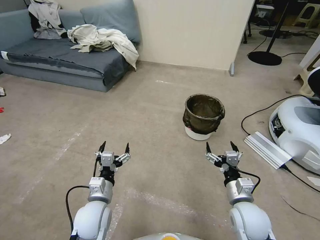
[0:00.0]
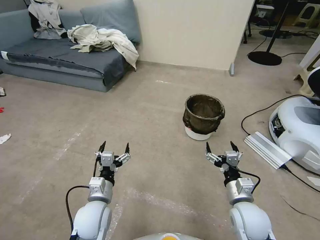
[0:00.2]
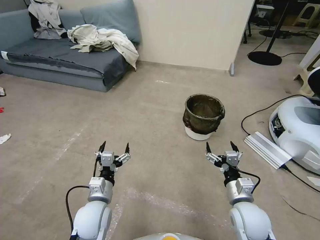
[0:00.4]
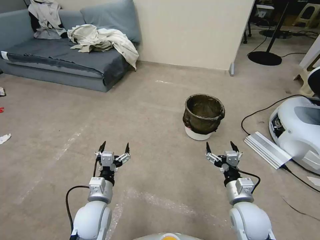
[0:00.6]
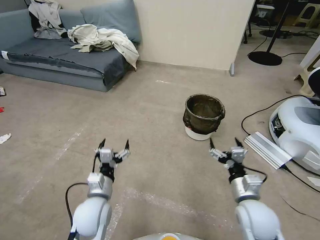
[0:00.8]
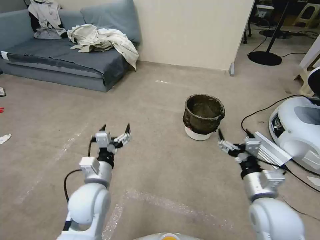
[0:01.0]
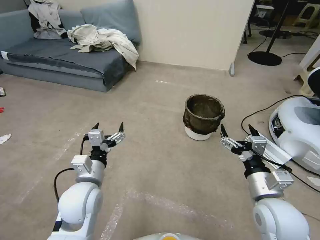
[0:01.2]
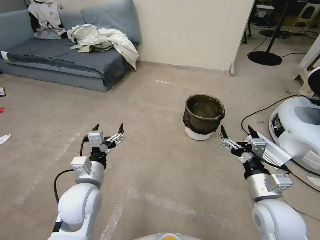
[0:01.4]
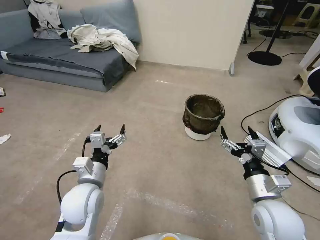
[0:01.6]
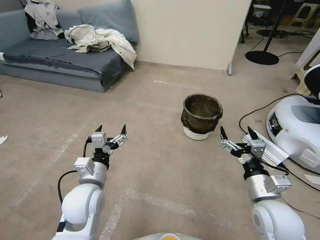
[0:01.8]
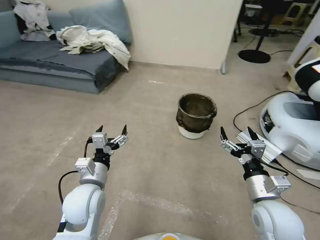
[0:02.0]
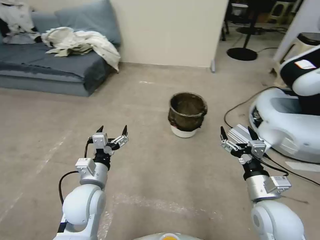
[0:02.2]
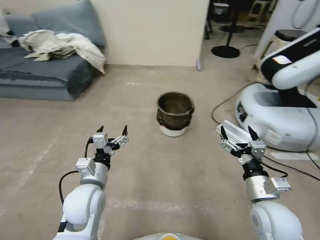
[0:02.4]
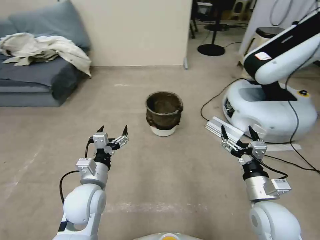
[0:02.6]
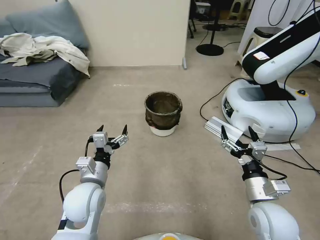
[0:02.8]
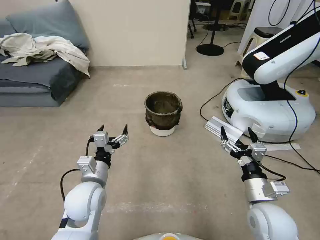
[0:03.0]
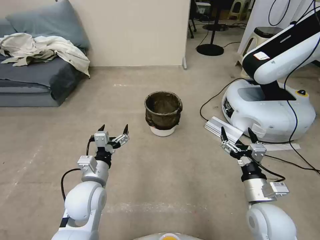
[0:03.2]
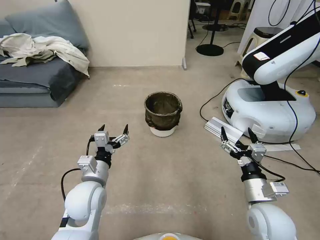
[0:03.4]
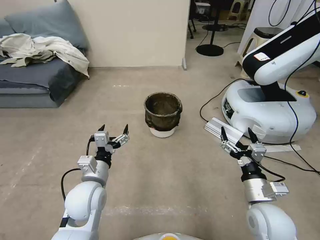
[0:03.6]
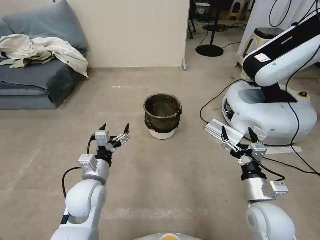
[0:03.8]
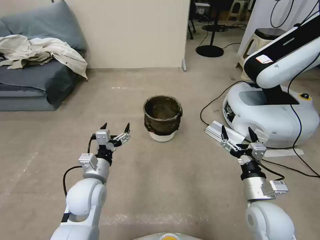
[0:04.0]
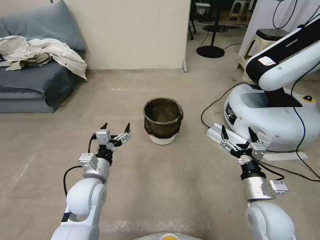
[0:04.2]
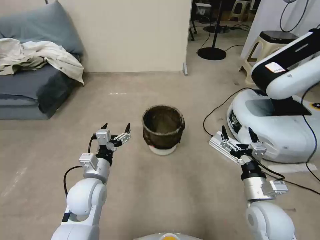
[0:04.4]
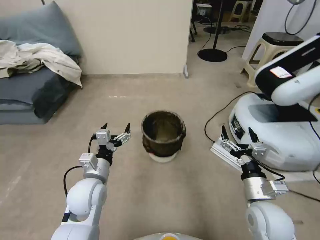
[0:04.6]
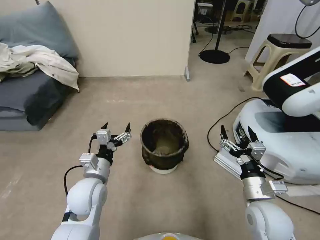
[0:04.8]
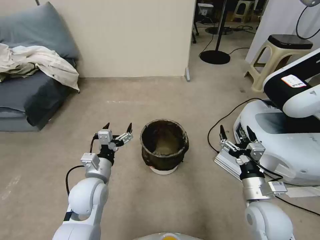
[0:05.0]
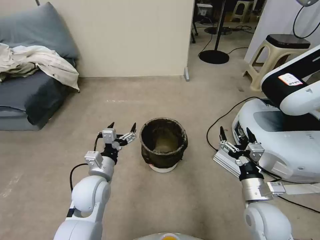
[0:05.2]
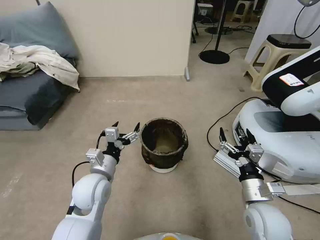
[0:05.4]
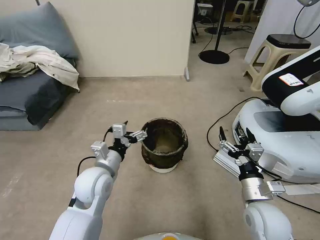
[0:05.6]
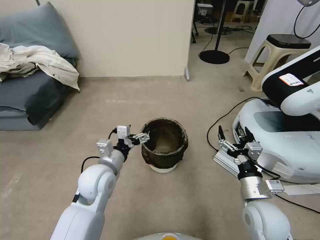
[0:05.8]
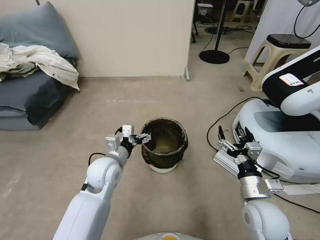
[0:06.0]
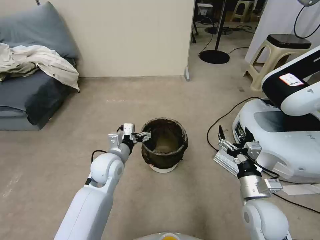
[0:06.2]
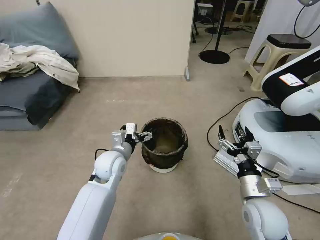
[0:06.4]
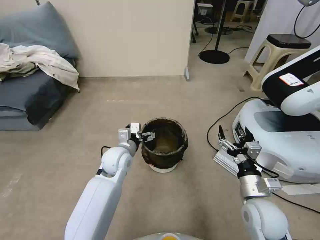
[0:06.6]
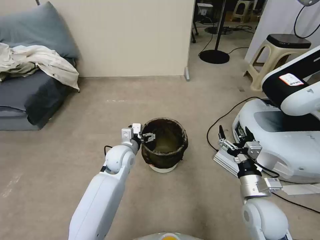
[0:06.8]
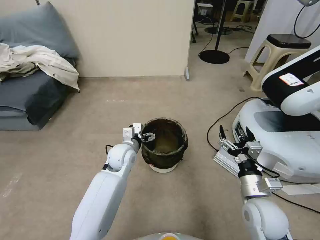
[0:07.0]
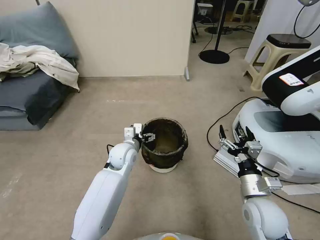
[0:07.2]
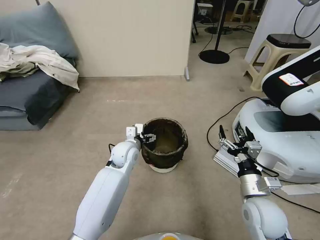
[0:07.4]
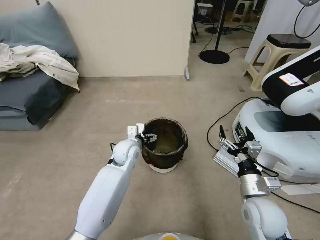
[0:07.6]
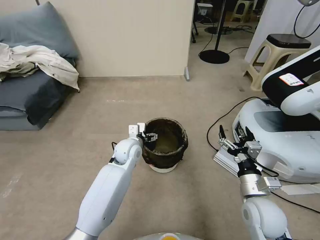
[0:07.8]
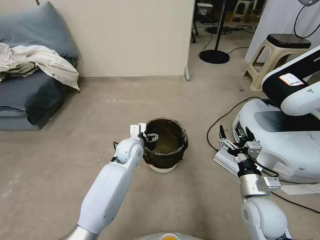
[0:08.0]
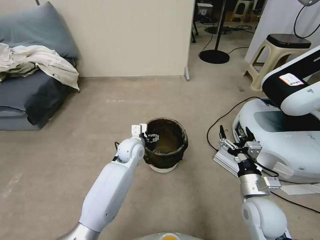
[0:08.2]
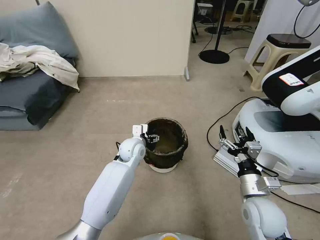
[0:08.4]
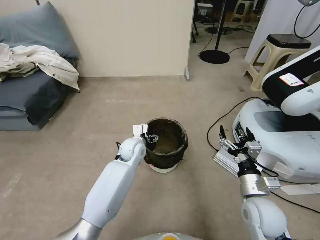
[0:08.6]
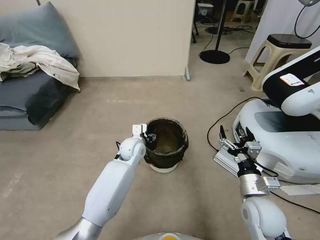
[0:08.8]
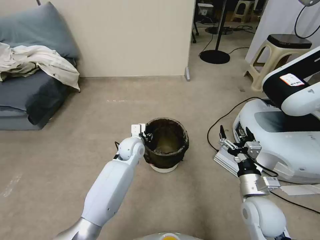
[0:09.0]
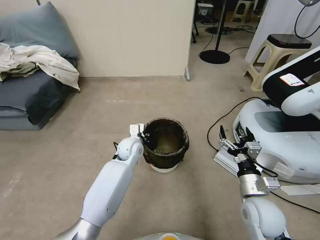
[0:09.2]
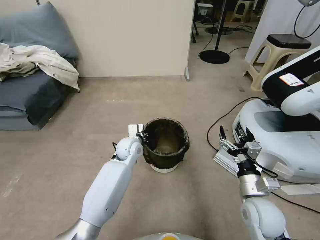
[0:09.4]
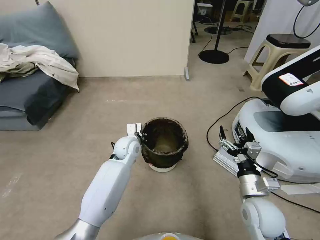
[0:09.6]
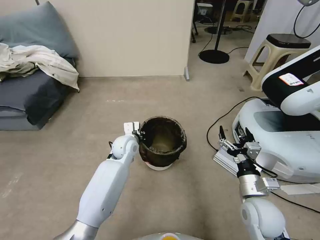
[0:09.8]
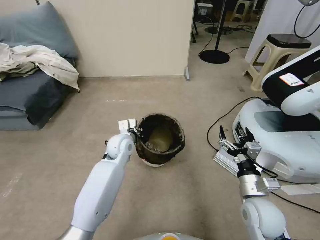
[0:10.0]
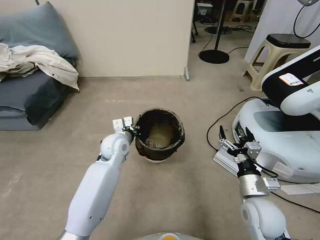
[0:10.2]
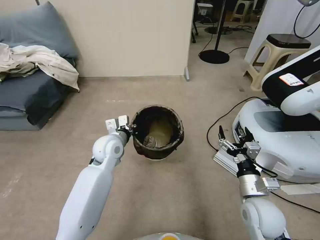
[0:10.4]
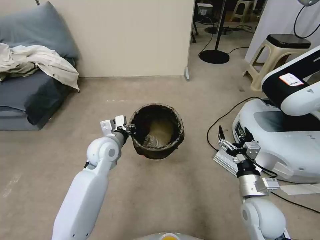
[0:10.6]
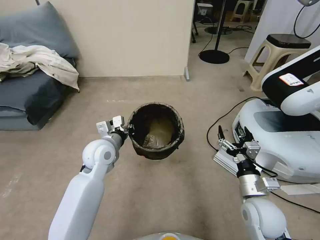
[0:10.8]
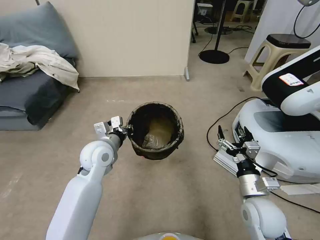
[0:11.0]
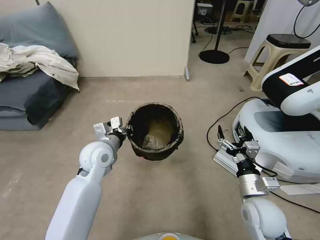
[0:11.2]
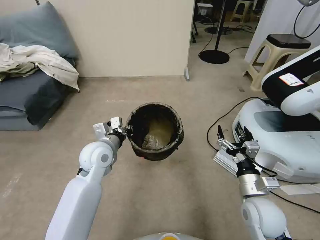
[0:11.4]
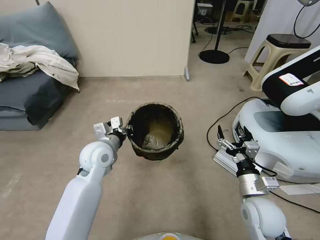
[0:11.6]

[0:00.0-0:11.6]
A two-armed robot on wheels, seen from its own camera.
Task of the whole recording: Pick up the trash can from the floor.
0:04.4 to 0:05.8: The left gripper ends up about 5 cm from where it was.
0:05.8 to 0:07.2: The left gripper moves forward, about 10 cm.
0:07.2 to 0:08.8: The grippers move only a little.
0:08.8 to 0:10.2: The left gripper heads to the left and upward, covering approximately 10 cm, and closes its fingers.
0:10.2 to 0:11.6: The left gripper is displaced backward by about 5 cm.

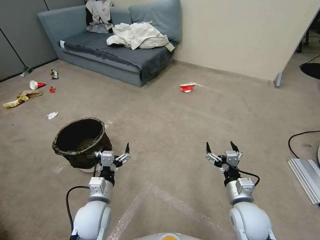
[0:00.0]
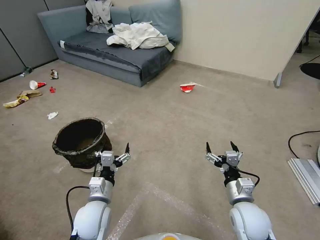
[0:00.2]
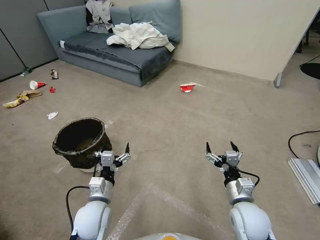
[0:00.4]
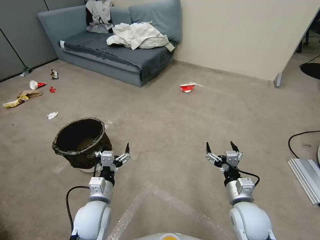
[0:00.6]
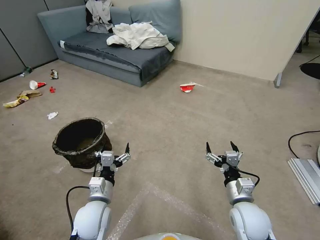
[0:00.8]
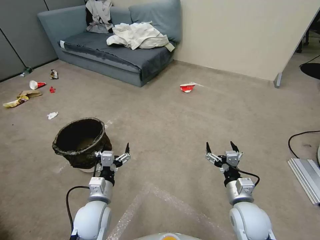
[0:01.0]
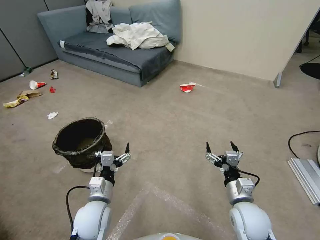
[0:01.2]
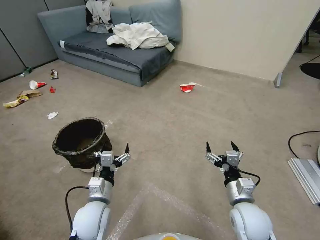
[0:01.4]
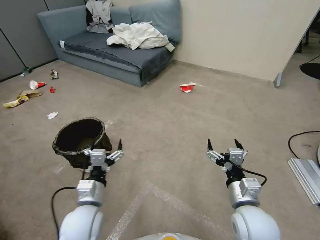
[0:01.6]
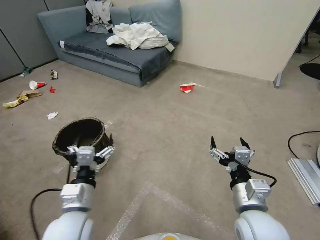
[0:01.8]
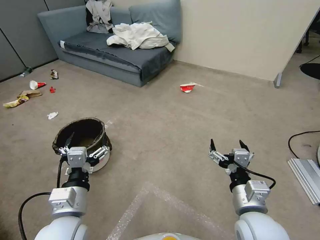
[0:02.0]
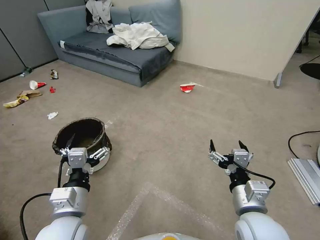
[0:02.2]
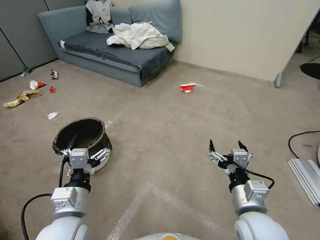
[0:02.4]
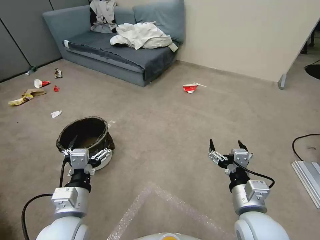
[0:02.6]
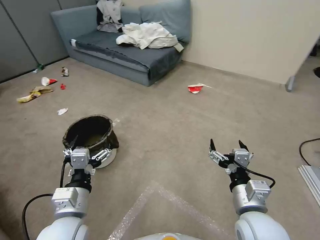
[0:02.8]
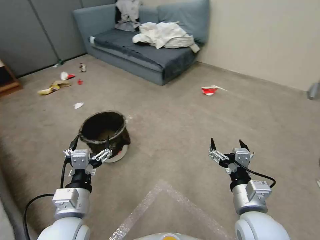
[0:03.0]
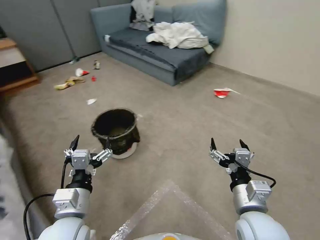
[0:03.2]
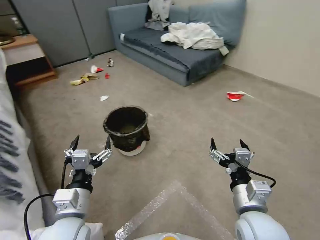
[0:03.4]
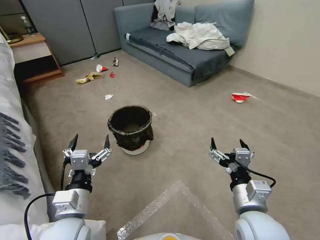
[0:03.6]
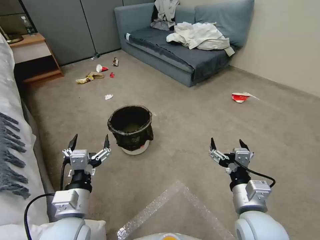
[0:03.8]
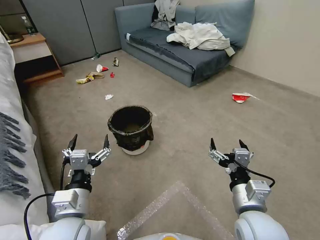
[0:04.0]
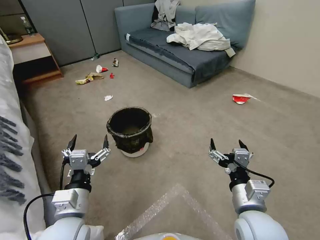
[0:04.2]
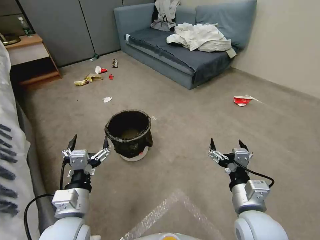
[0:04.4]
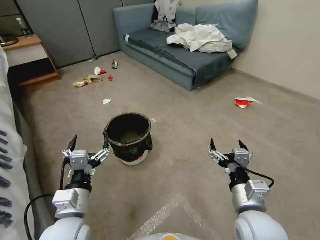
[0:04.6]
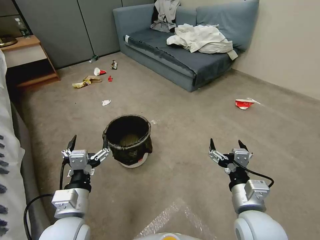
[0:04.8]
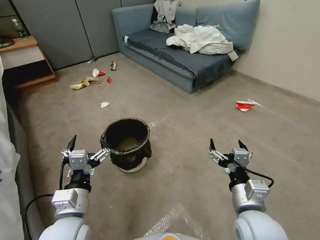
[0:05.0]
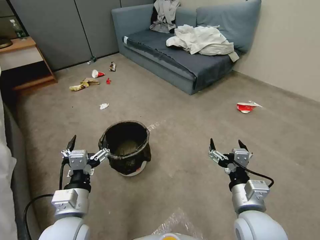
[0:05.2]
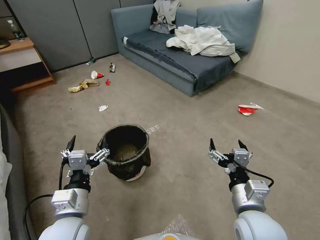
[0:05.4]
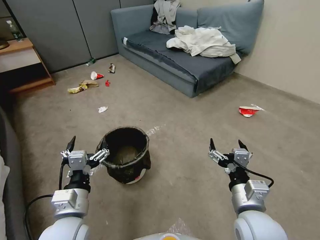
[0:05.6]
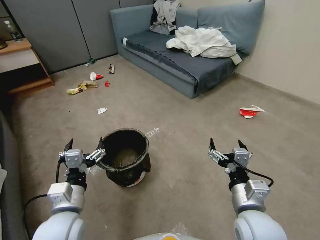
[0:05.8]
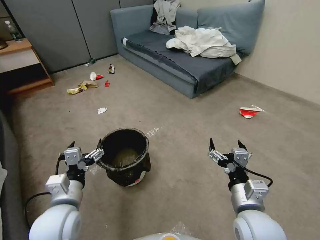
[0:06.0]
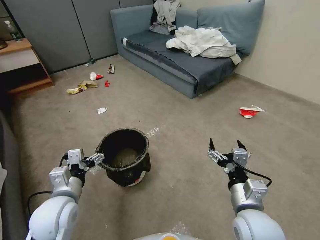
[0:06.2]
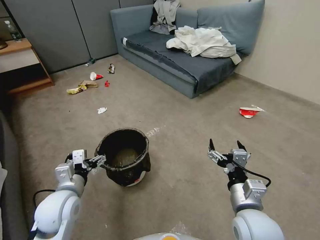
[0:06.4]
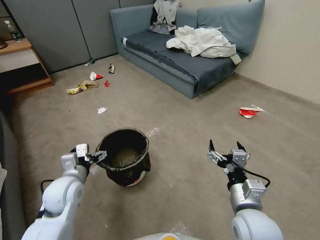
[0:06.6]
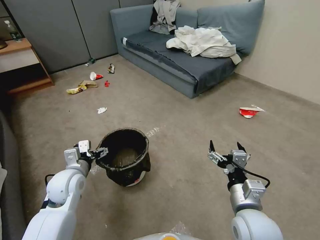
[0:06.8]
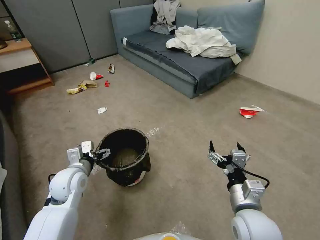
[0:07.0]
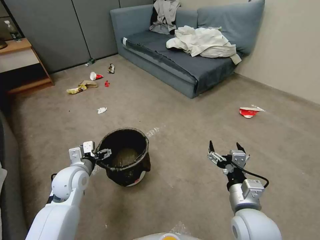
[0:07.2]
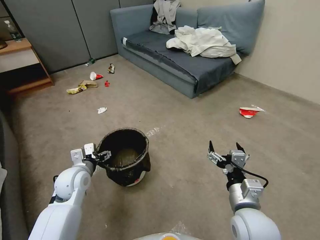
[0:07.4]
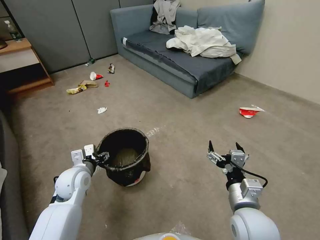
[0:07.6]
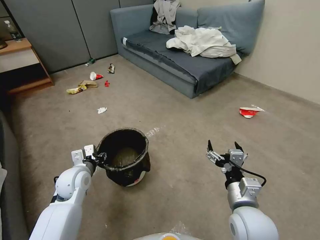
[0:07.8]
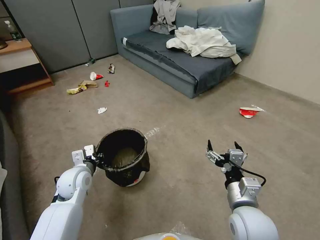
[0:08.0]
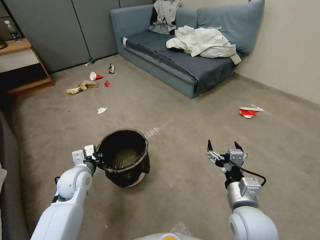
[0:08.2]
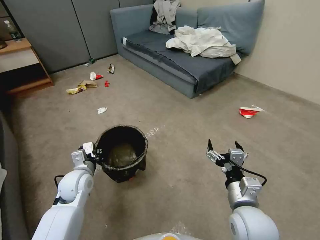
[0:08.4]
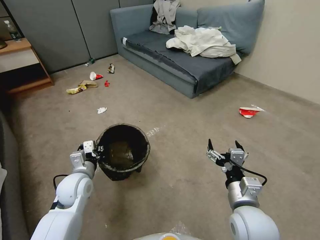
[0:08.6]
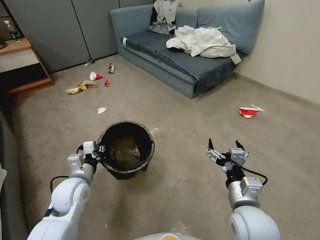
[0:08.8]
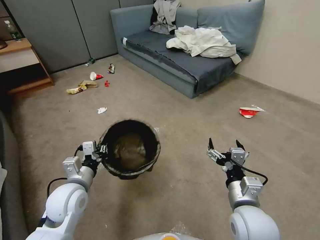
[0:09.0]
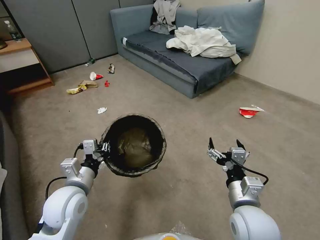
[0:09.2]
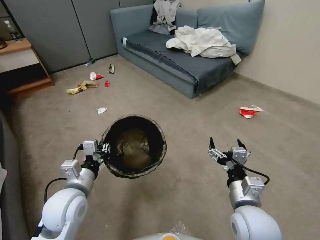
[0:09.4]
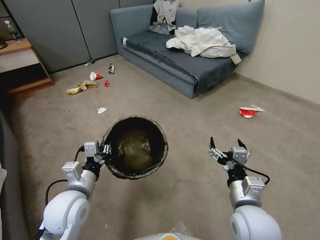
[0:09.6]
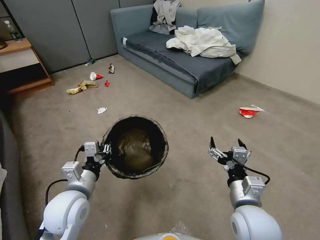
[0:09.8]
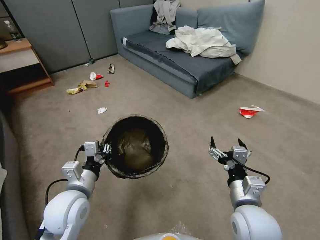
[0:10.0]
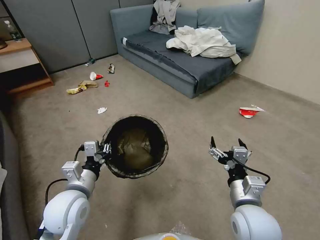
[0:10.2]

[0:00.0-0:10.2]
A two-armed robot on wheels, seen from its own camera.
Task of the whole recording: Pick up the trash can from the floor.
0:01.4 to 0:03.0: The right gripper heads upward, covering roughly 10 cm. The left gripper heads upward and backward, covering approximately 10 cm.
0:05.8 to 0:07.2: The left gripper heads forward and to the left, covering about 15 cm.
0:07.2 to 0:08.8: The left gripper closes up.
0:08.8 to 0:10.2: The left gripper shifts some 5 cm backward.
